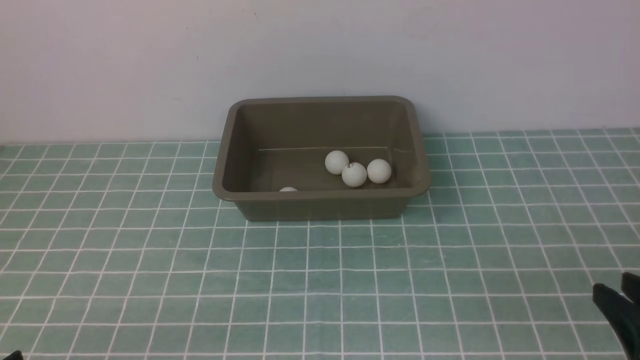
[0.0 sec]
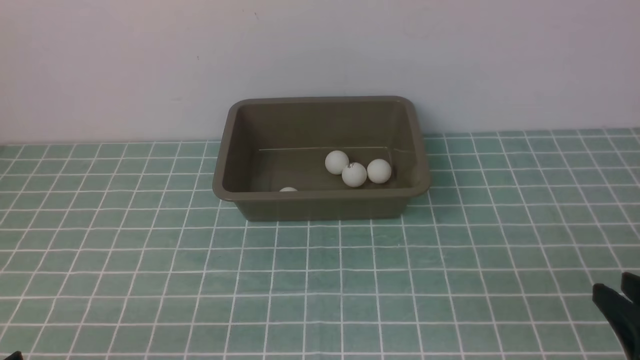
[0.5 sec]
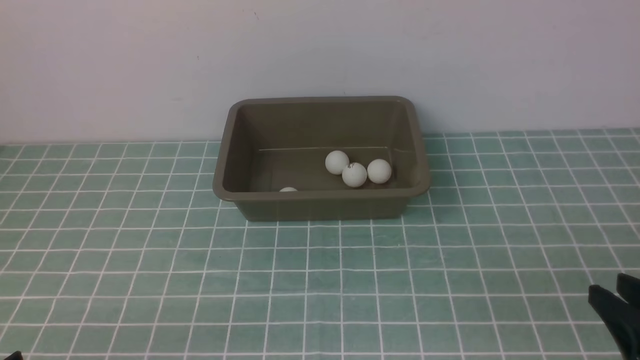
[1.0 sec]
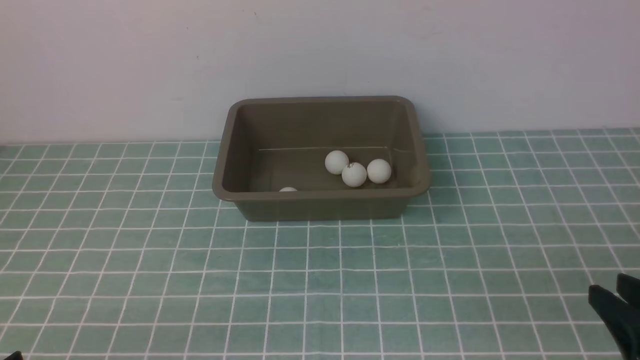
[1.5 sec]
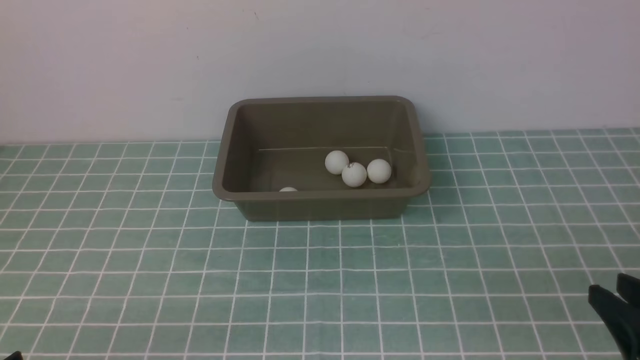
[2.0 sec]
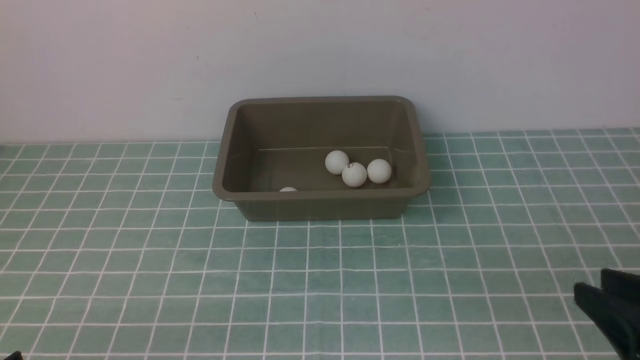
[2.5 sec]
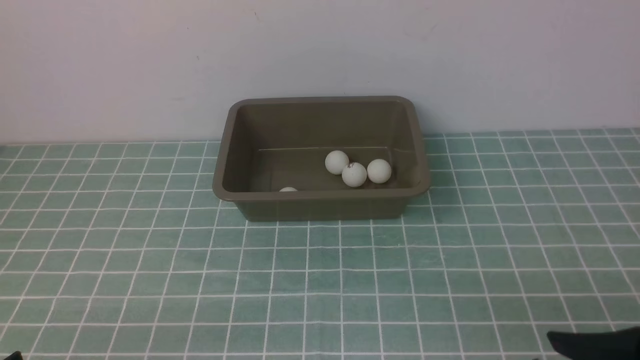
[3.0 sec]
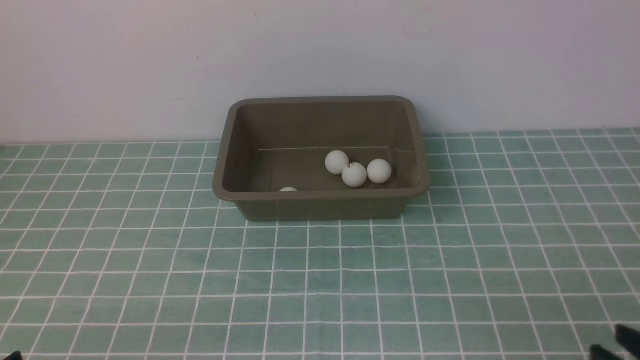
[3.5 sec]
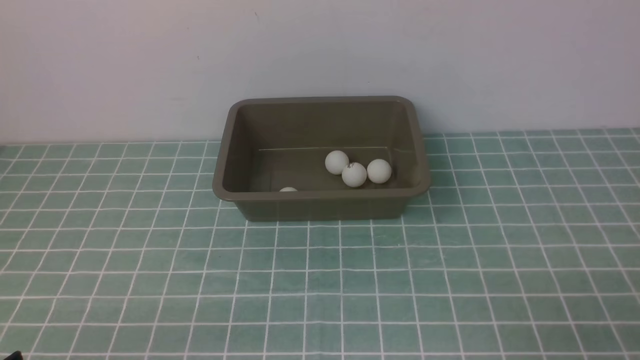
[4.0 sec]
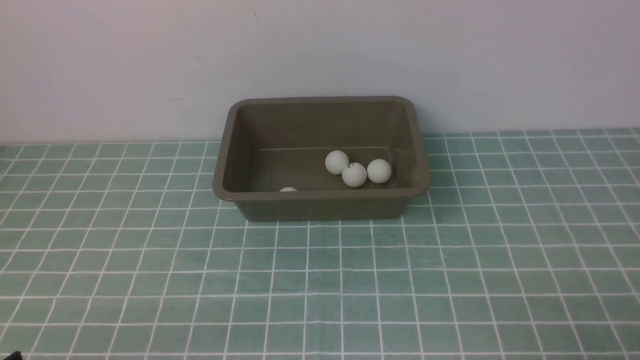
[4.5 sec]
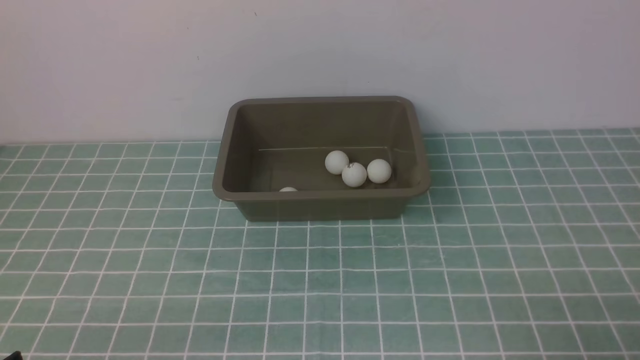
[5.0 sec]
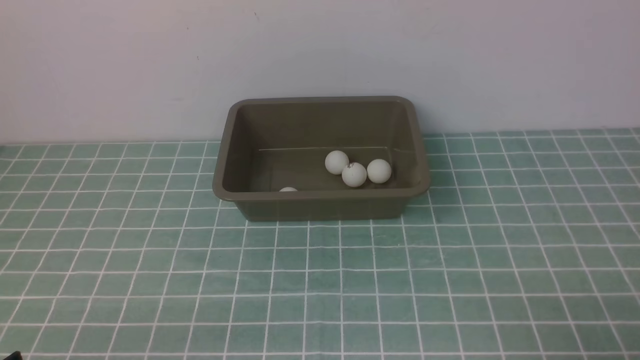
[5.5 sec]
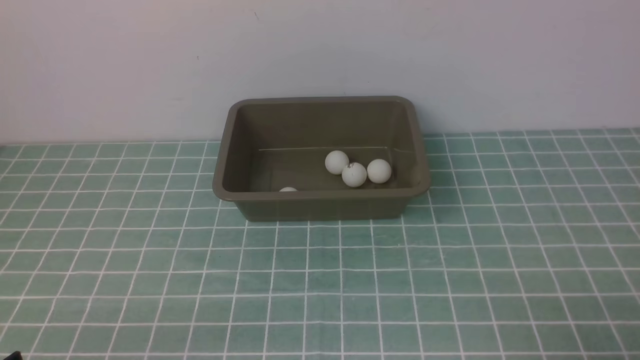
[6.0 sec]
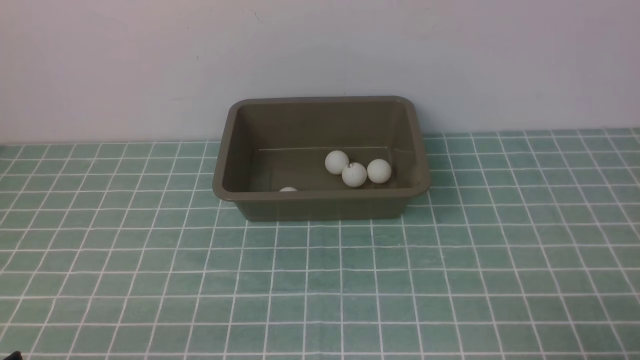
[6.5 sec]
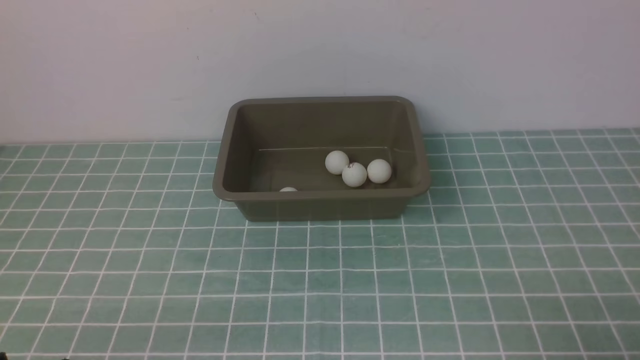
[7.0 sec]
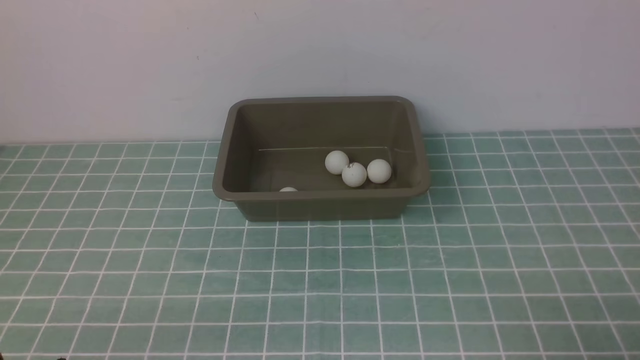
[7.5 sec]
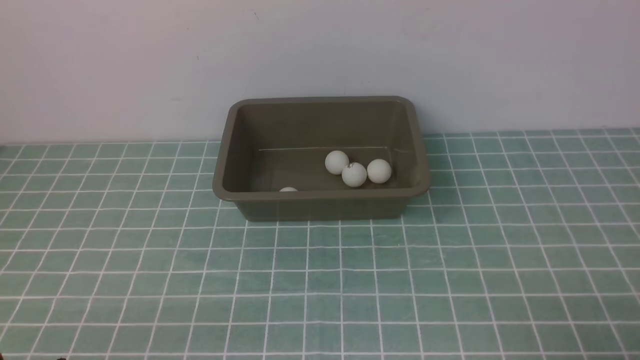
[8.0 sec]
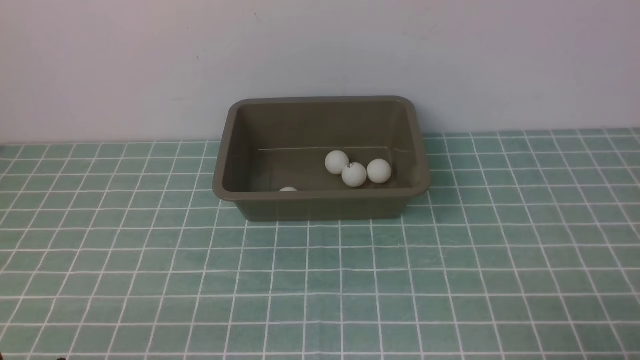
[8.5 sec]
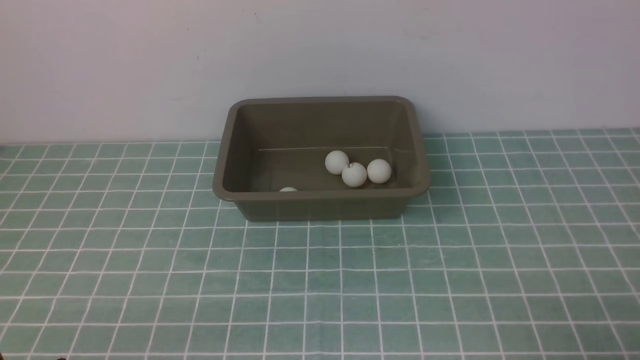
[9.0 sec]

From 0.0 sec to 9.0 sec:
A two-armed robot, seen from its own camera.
From 0.0 sec to 2.0 sec: Both grippers stay about where they are.
From 2.0 sec to 4.5 sec: The right gripper travels backward and downward by roughly 10 cm.
From 7.0 sec to 9.0 sec: Both grippers stay about where they are.
